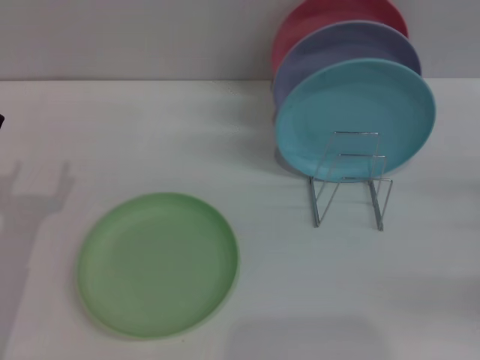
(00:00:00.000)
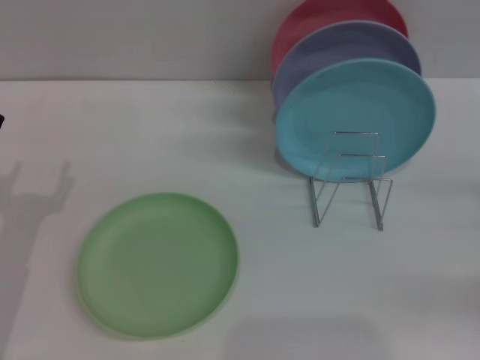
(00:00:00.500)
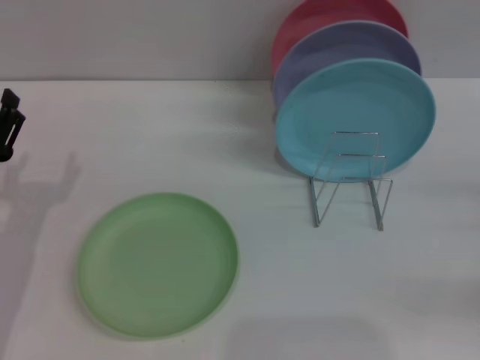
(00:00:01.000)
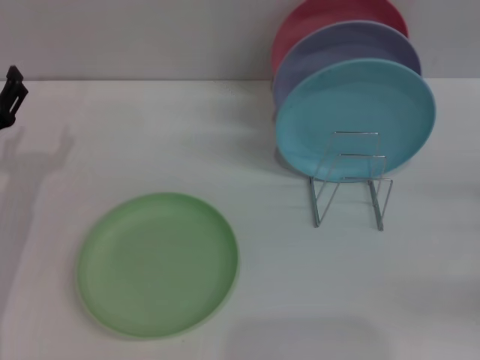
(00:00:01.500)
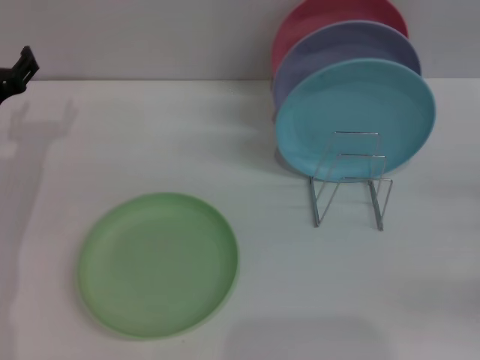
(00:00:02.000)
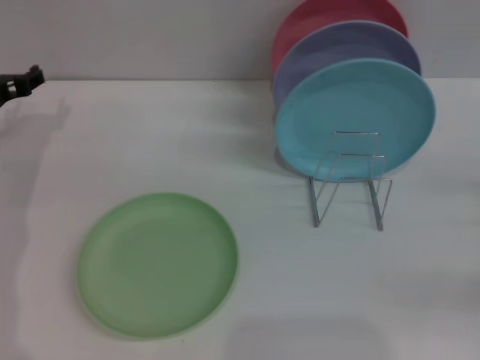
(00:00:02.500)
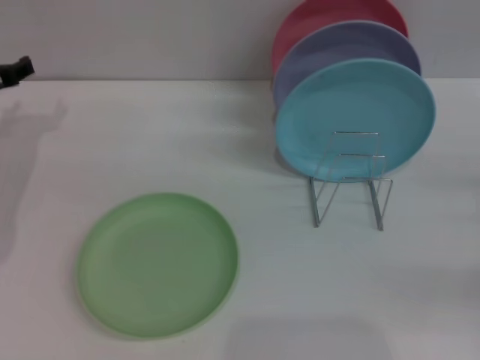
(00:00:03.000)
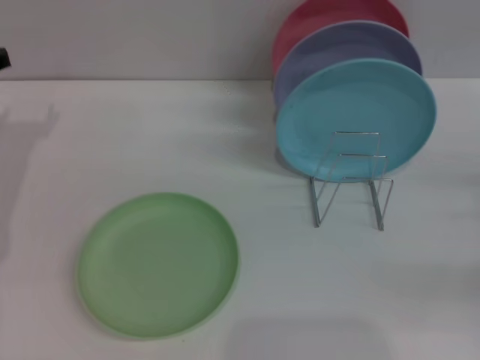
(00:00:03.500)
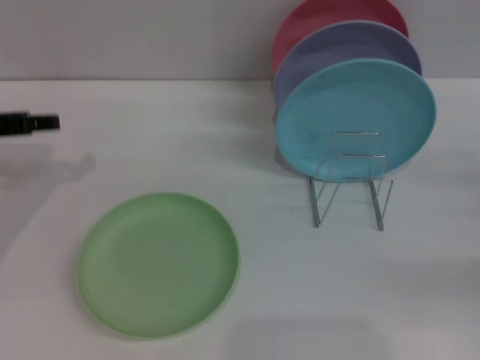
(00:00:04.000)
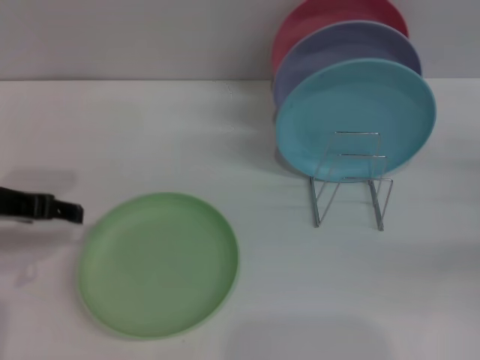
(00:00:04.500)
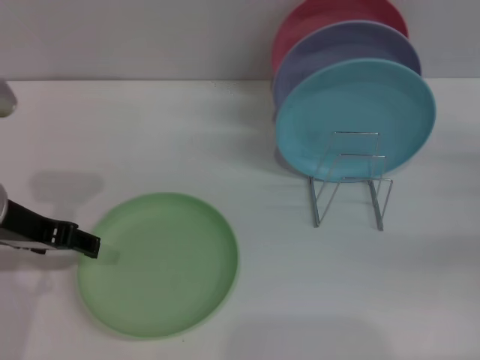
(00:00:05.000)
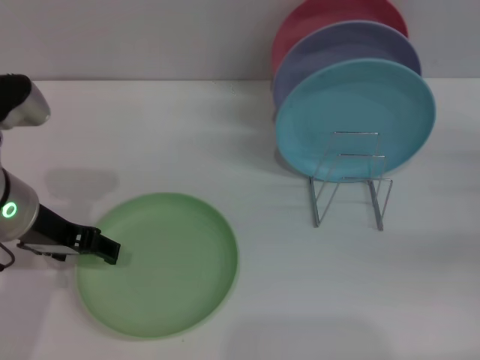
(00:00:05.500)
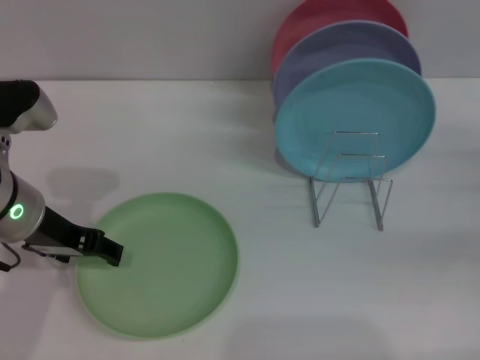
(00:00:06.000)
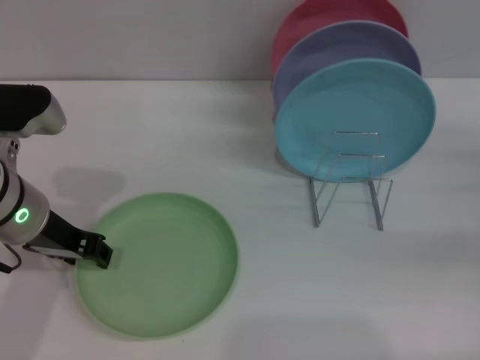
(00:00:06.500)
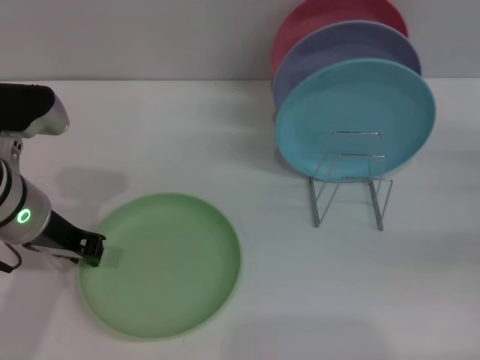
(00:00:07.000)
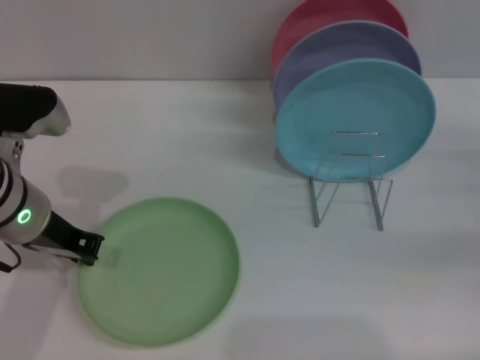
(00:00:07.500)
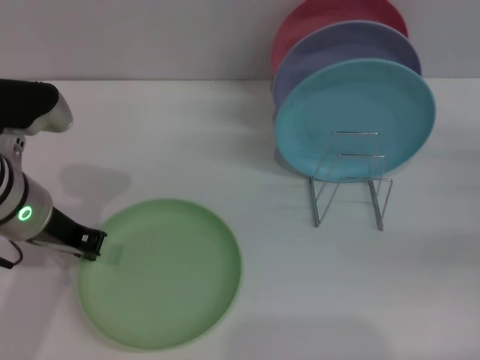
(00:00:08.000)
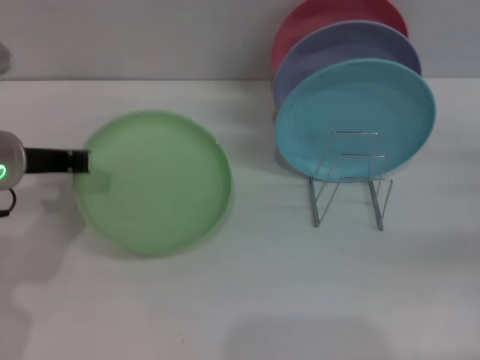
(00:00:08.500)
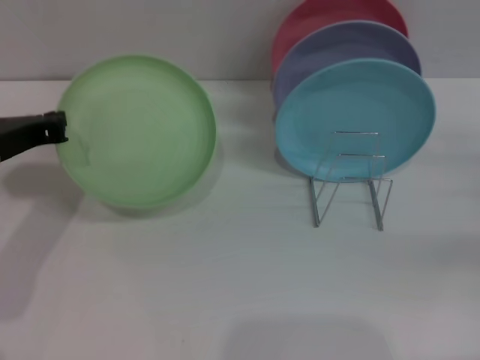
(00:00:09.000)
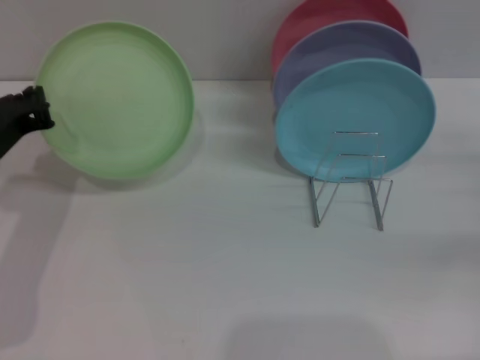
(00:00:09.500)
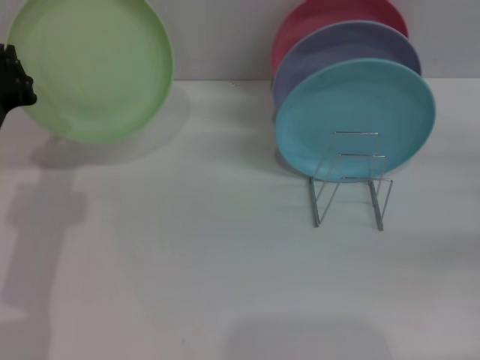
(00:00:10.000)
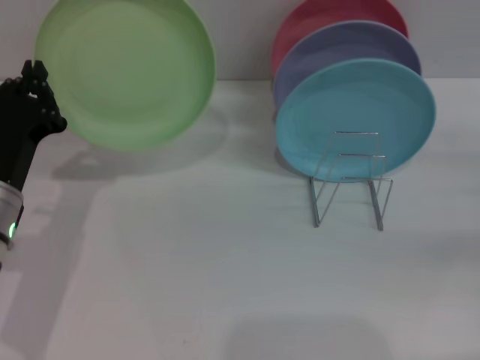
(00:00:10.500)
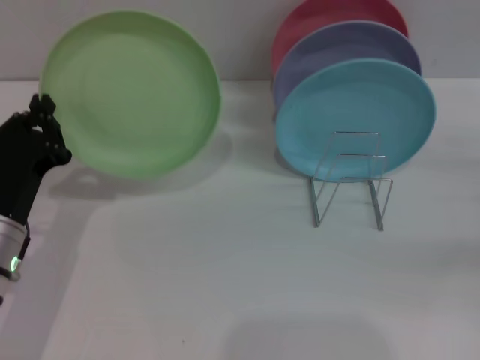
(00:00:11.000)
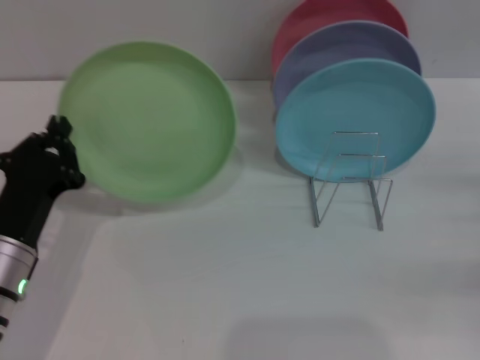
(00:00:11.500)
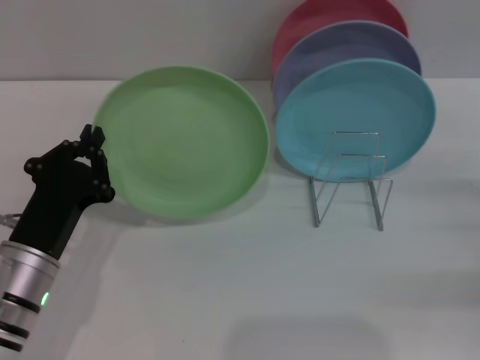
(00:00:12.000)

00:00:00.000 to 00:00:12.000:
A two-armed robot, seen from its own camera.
Task of the whole recording: Grip the plate with one hand, pass it to the other, then set it on the shelf.
Step, 00:00:00.000 to 00:00:09.000: Pick up the plate with the left gripper.
00:00:00.000 to 00:00:02.000: The left gripper is displaced forward by some 15 cm.
00:00:02.000 to 00:00:04.000: The left gripper is displaced upward by roughly 10 cm.
00:00:04.000 to 00:00:06.000: The left gripper moves to the right, roughly 10 cm.
00:00:06.000 to 00:00:08.000: The left gripper closes up.
00:00:10.000 to 00:00:12.000: The left gripper travels downward and backward by some 10 cm. Meanwhile the right gripper ends up some 5 cm from where it was.

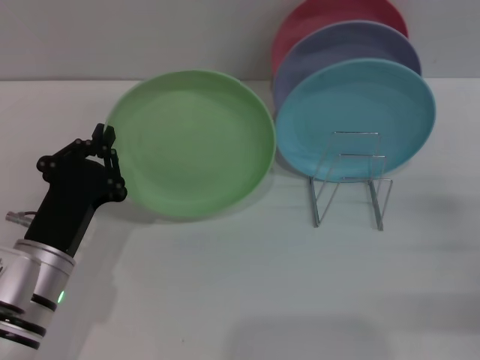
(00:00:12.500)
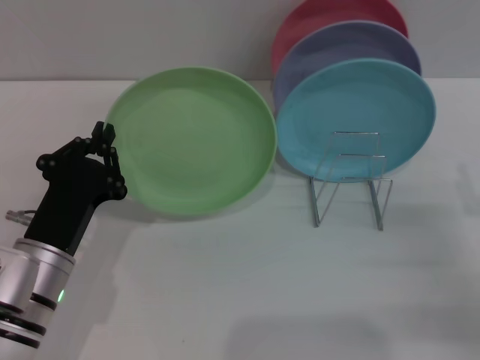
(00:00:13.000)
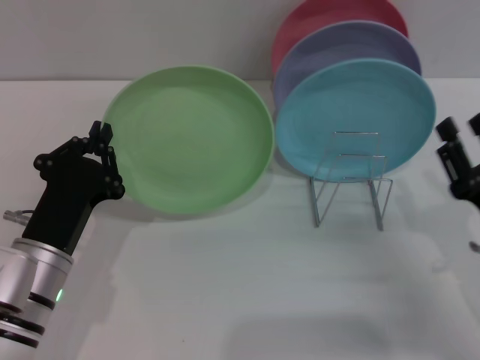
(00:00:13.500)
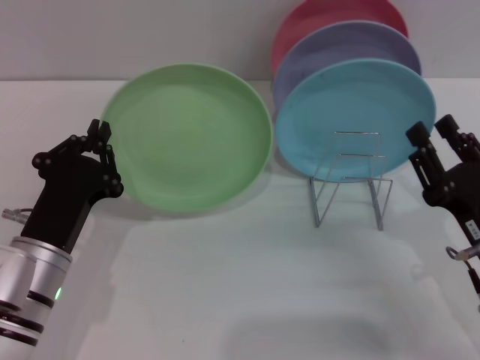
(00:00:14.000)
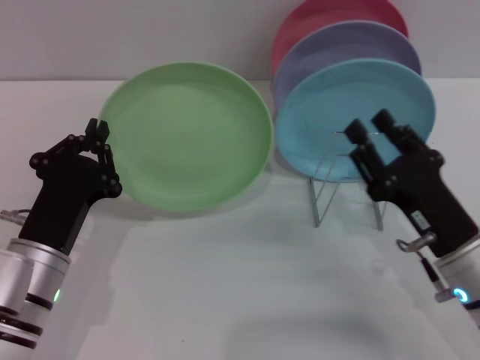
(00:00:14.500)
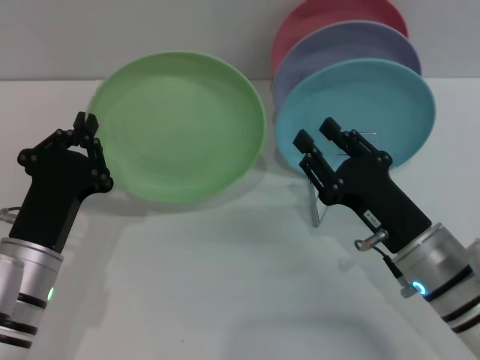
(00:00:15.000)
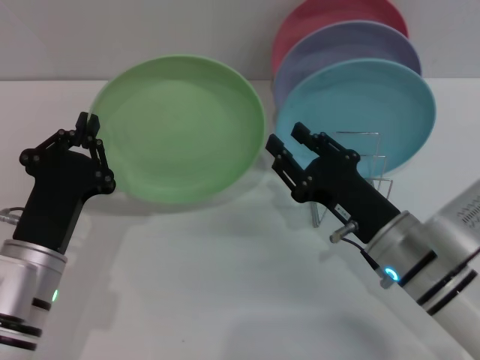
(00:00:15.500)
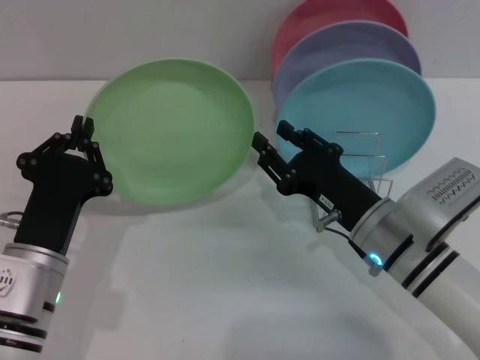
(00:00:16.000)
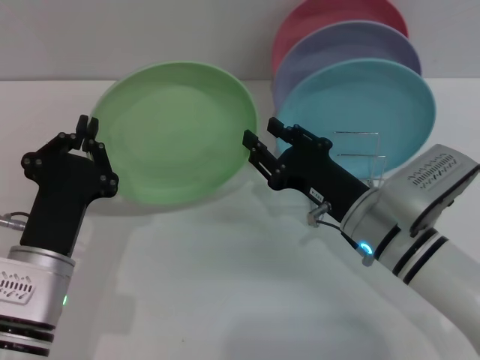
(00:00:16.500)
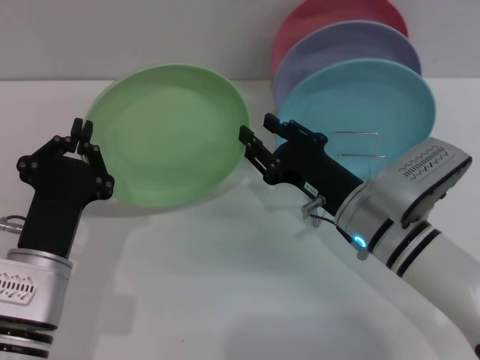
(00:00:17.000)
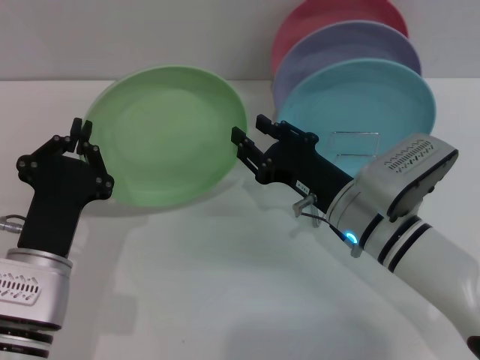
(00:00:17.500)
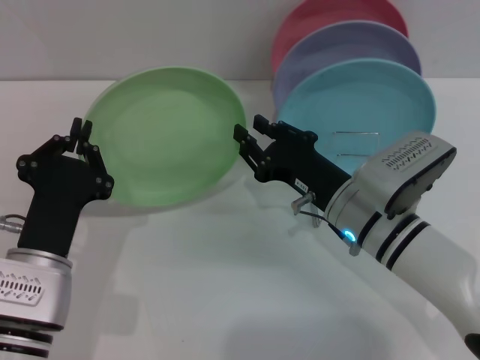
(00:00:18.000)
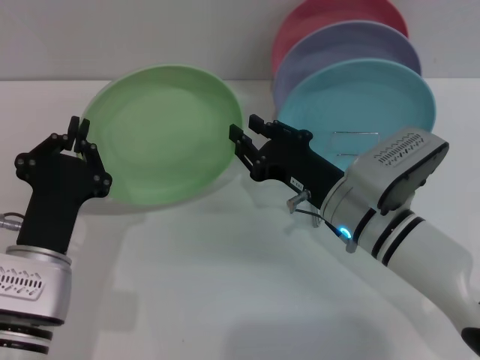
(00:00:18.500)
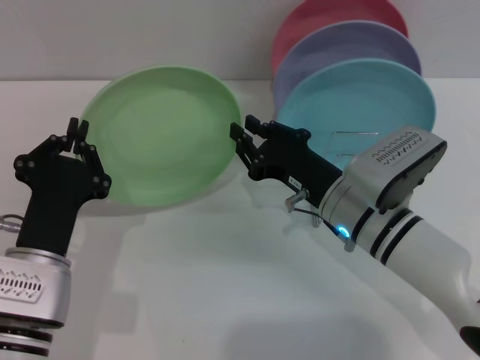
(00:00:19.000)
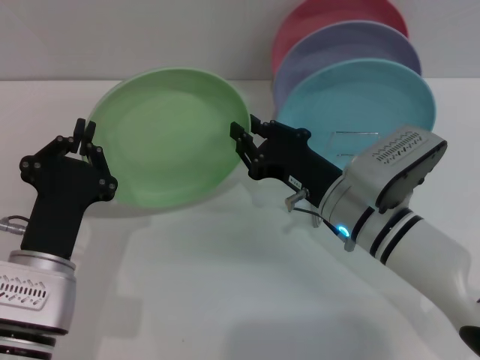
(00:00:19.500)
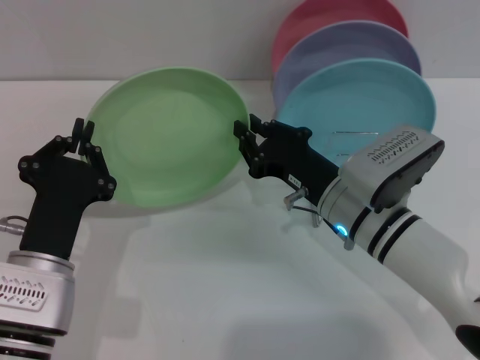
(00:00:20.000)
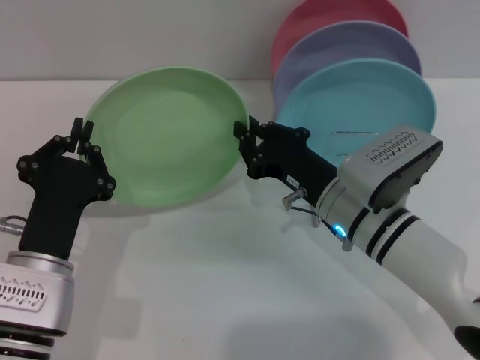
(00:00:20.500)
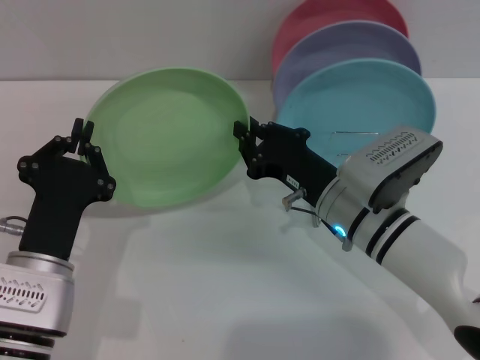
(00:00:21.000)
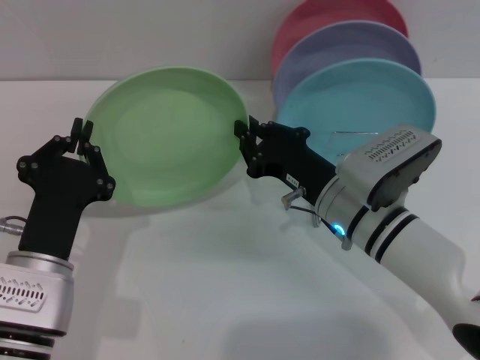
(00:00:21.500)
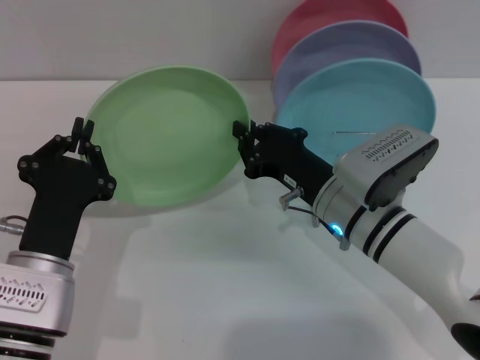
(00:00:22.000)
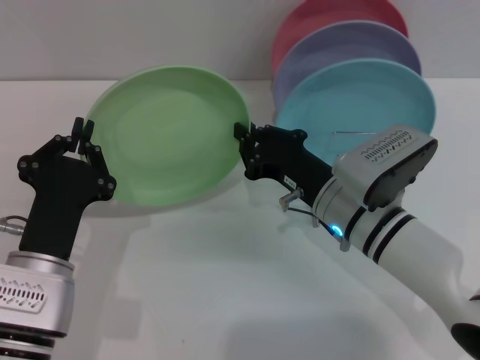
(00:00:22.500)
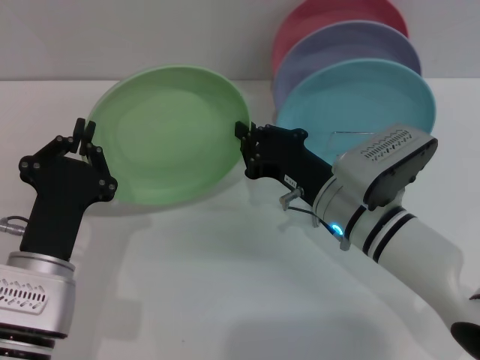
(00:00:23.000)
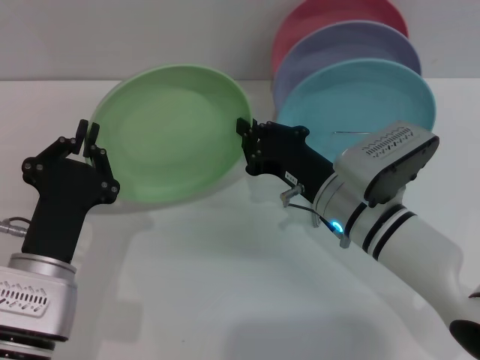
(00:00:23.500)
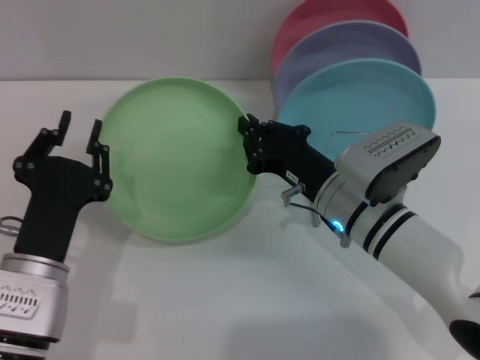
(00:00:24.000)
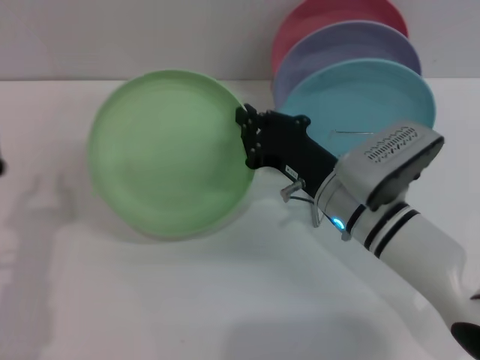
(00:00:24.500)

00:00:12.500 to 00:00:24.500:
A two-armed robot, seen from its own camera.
Task of the whole recording: Grip the plate with one hand, pass it to the other, then set it on the shelf.
Step, 00:00:12.500 to 00:00:24.000: Pass the plate from the left gripper to the right gripper.
00:00:12.500 to 00:00:14.500: The right gripper goes some 15 cm to the left.
00:00:14.500 to 00:00:16.500: The right gripper heads to the left and forward, covering about 10 cm.
00:00:16.500 to 00:00:18.500: The grippers stay close to where they were, moving slightly.
00:00:18.500 to 00:00:22.500: Both grippers stay about where they are.
00:00:22.500 to 00:00:24.500: The left gripper shifts about 5 cm to the left, and opens.

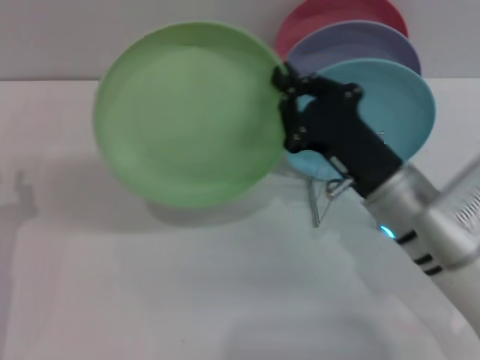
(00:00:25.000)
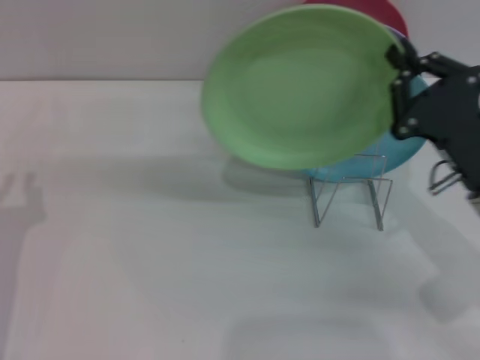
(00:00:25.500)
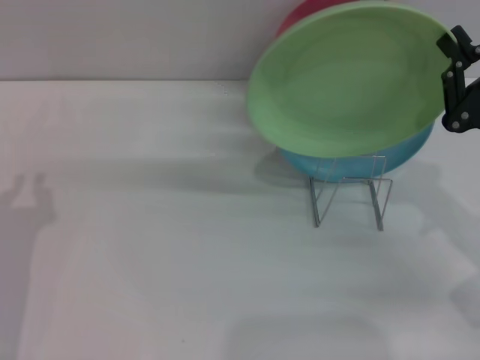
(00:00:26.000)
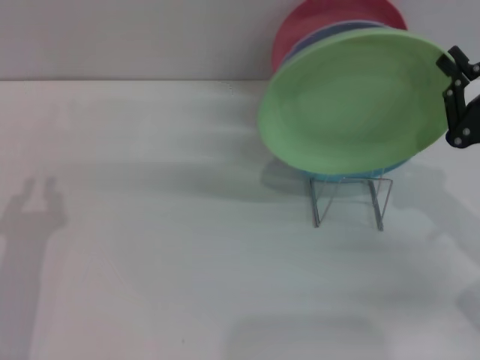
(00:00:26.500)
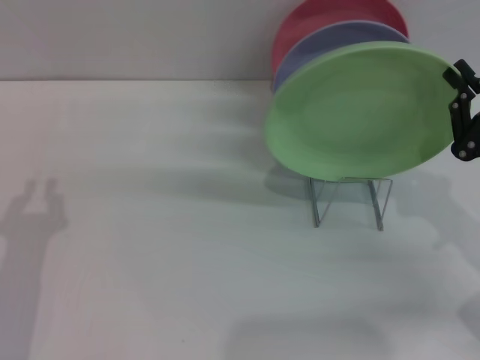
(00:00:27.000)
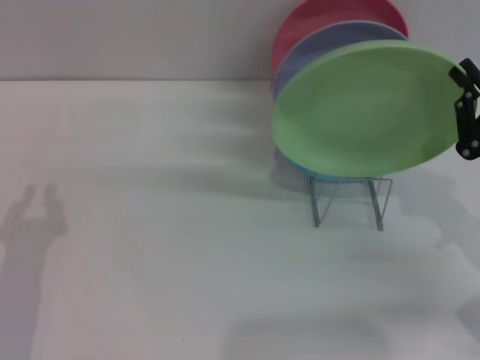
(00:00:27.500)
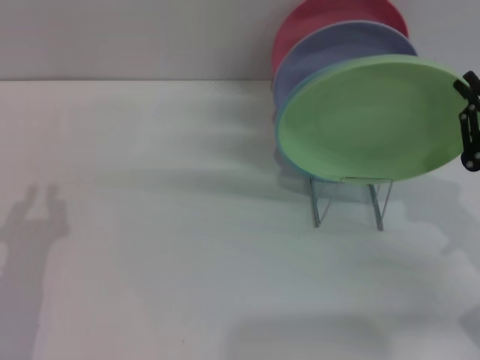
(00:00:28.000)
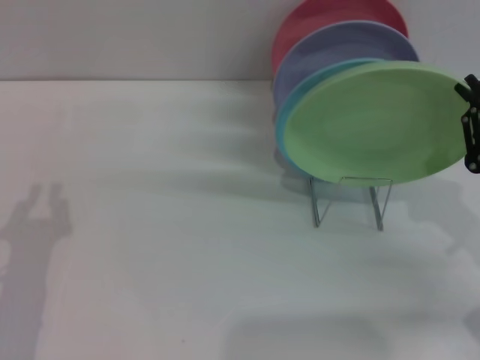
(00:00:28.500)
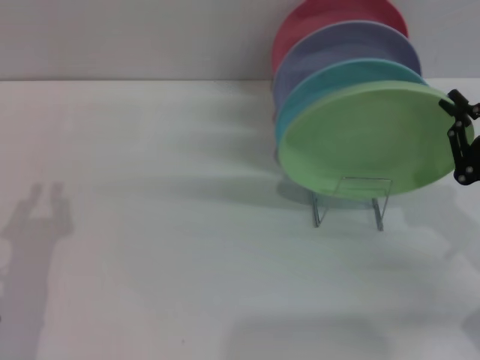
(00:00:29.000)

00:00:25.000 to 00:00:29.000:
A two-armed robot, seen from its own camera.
Task of the whole recording: Grip the plate with one hand, pass it to the other, then set it on the shelf.
00:00:25.000 to 00:00:27.000: The right gripper travels to the right by roughly 15 cm.
00:00:27.000 to 00:00:29.000: The grippers move only a little.
